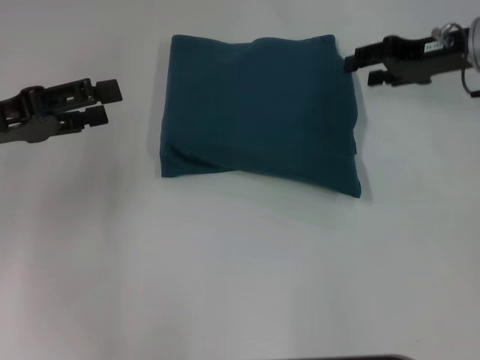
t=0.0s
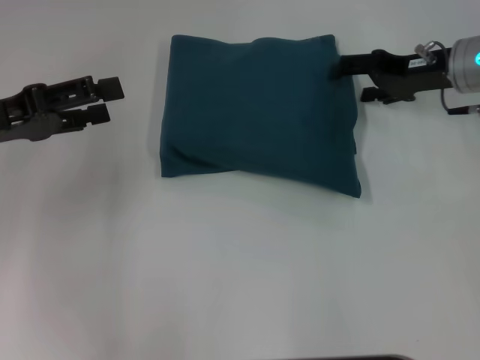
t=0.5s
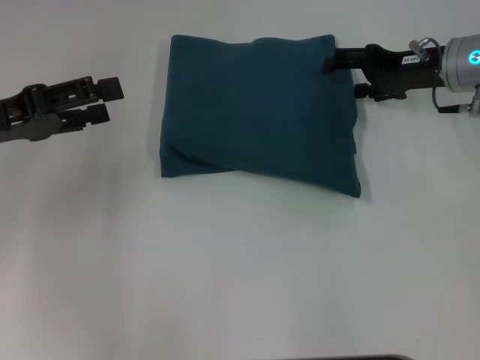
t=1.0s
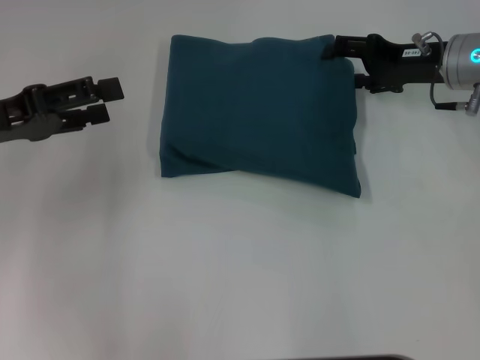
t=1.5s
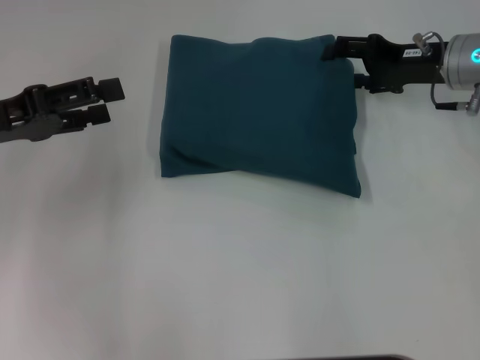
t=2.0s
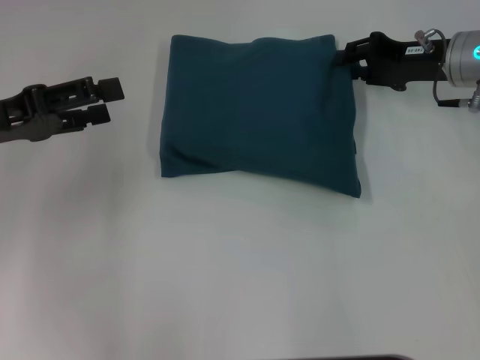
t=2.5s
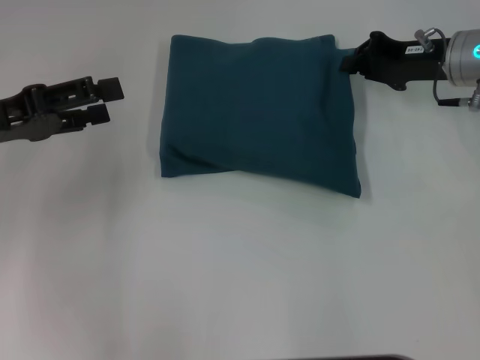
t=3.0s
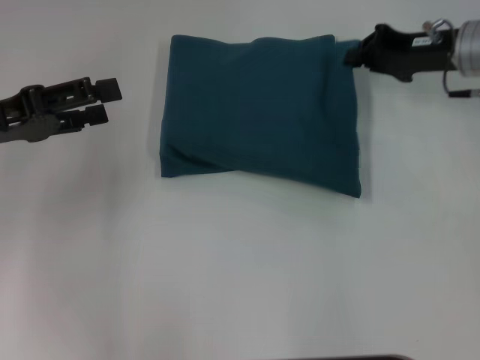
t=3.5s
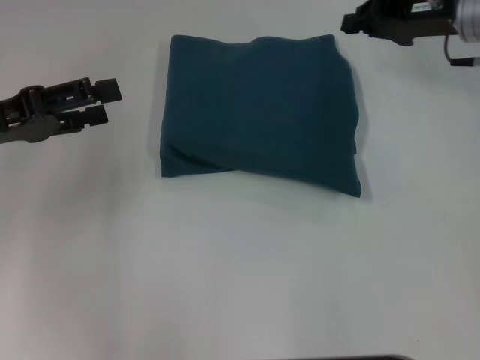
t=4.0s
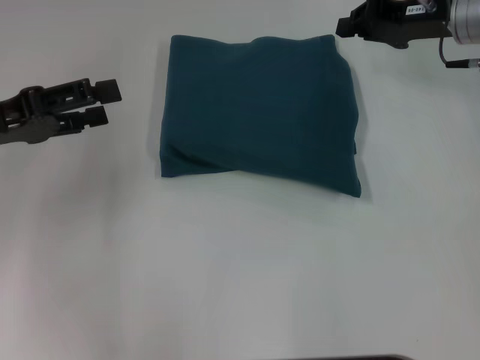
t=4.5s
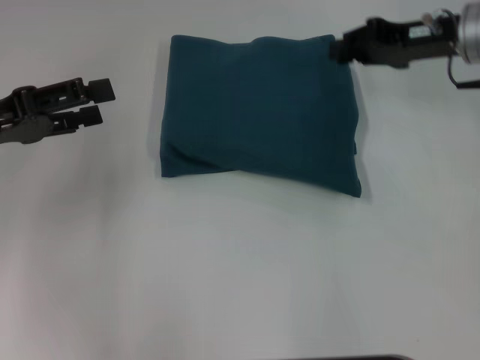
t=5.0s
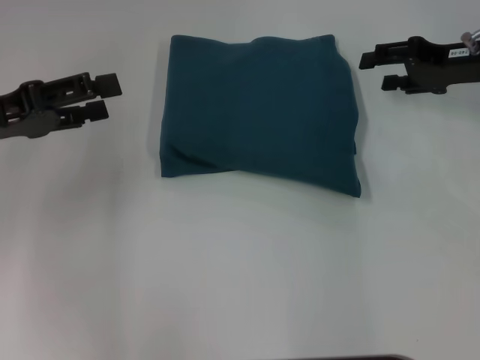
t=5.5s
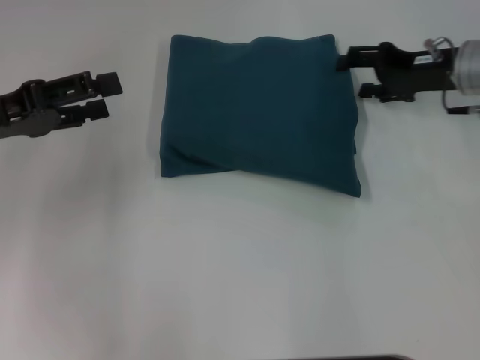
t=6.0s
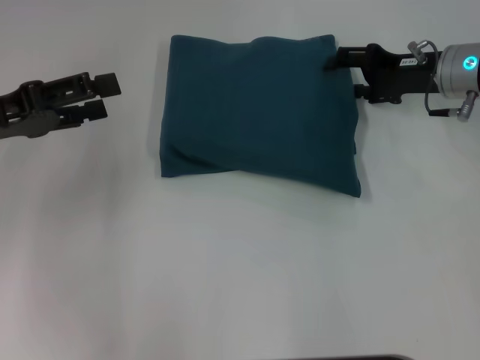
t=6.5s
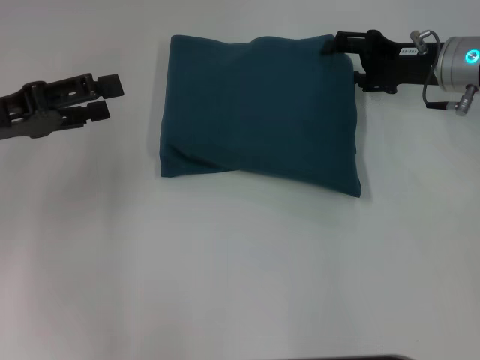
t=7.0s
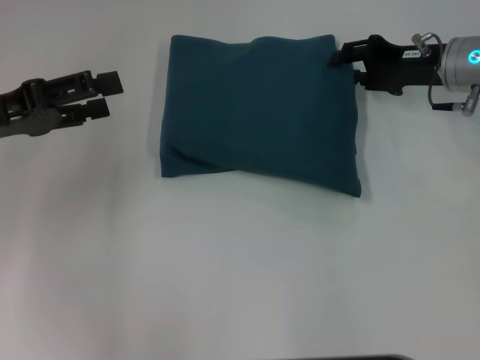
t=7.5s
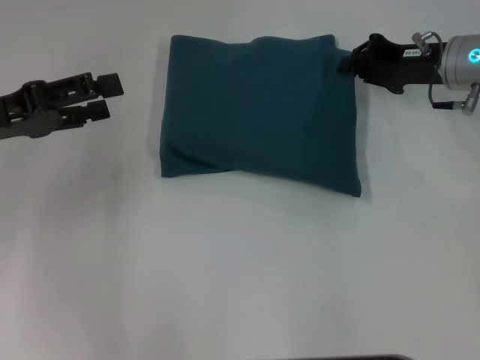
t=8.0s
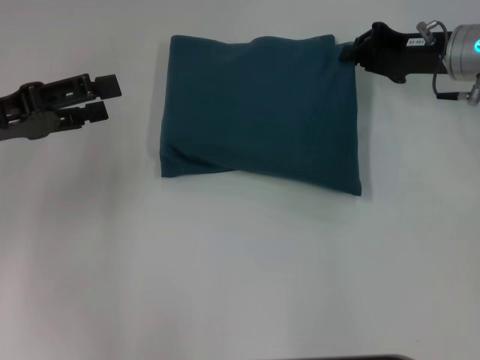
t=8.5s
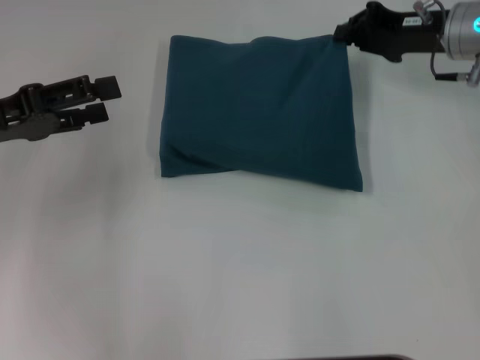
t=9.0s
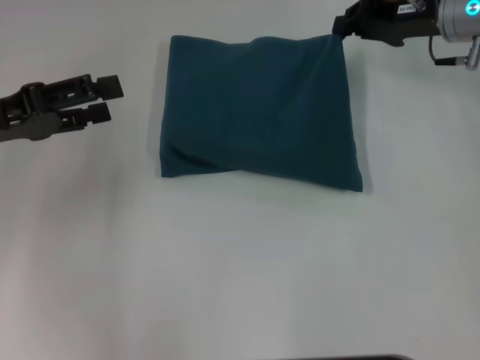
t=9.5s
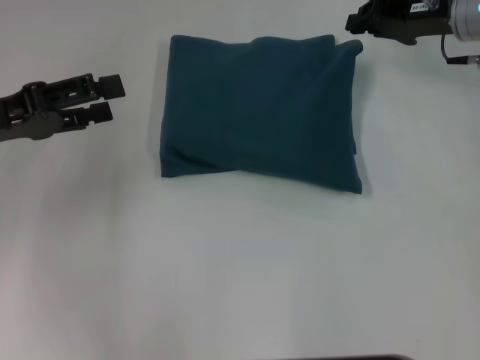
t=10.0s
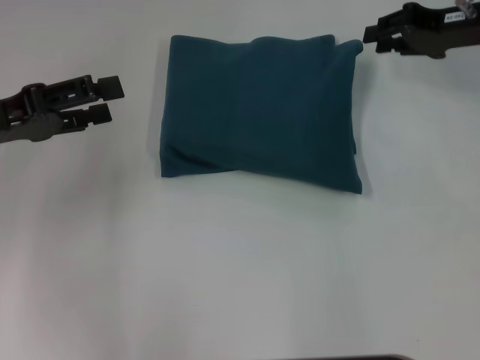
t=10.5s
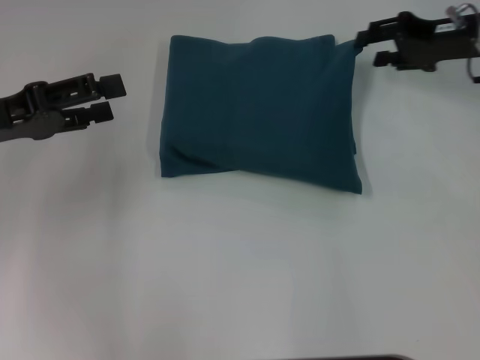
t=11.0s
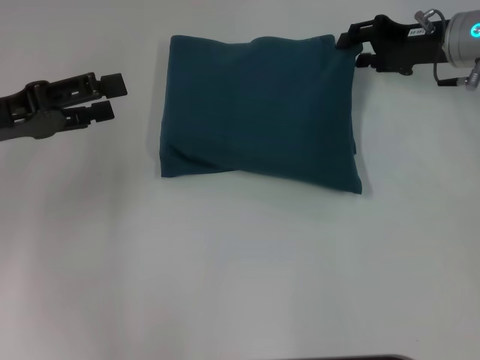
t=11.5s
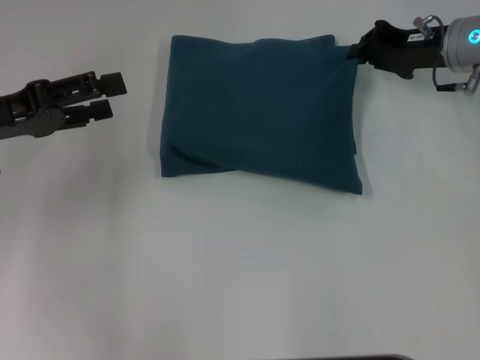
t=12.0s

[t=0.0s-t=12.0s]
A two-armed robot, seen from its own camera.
t=0.0s to t=2.0s: The right gripper opens its fingers.
t=2.0s to t=4.0s: The right gripper closes.
t=4.0s to t=6.0s: The right gripper moves roughly 5 cm, and opens up.
t=6.0s to t=8.0s: The right gripper closes its fingers.
t=8.0s to t=10.0s: The right gripper shifts by roughly 5 cm.
t=10.0s to t=12.0s: The grippers stay close to where they were, moving slightly.

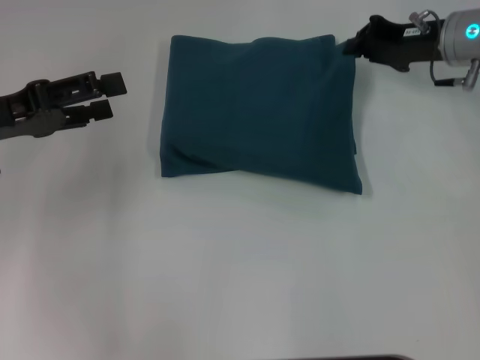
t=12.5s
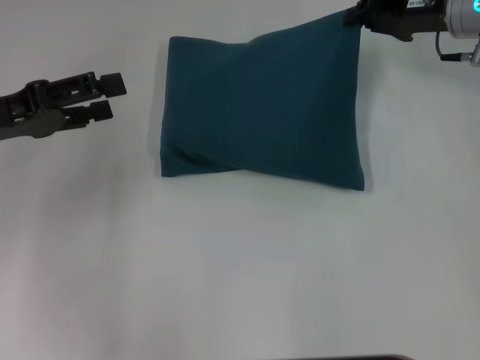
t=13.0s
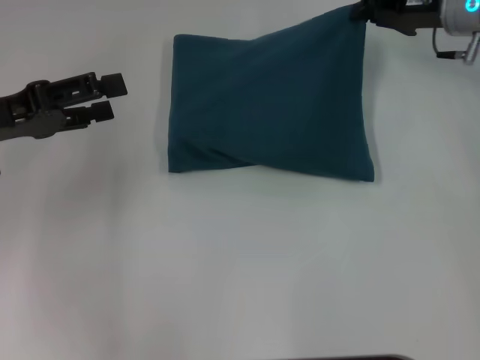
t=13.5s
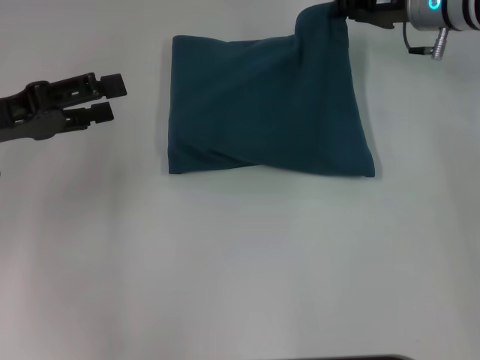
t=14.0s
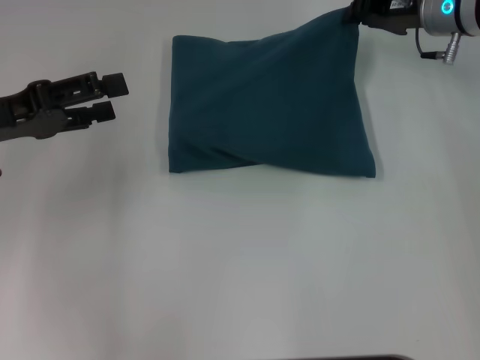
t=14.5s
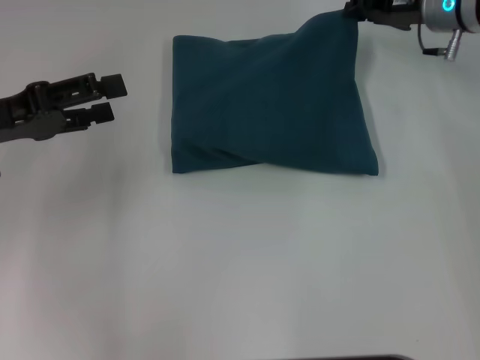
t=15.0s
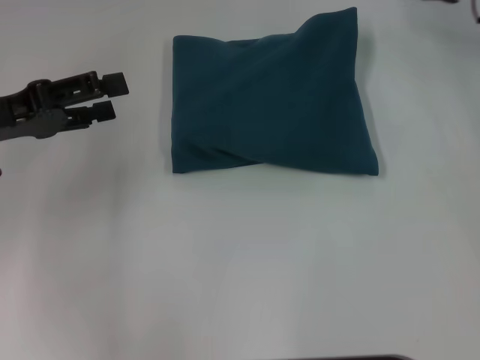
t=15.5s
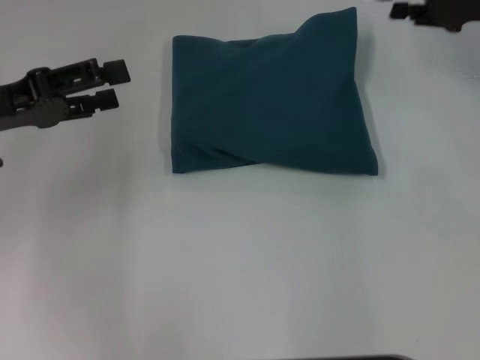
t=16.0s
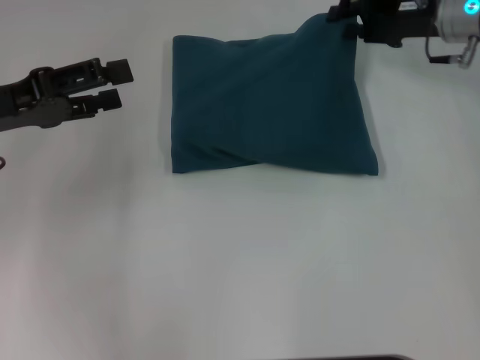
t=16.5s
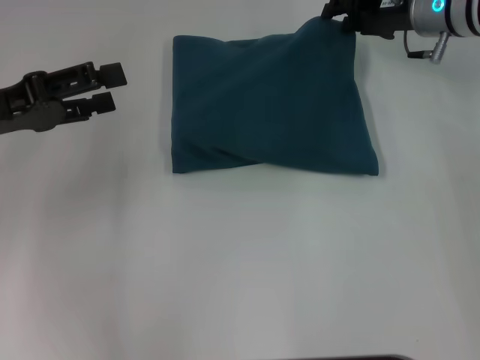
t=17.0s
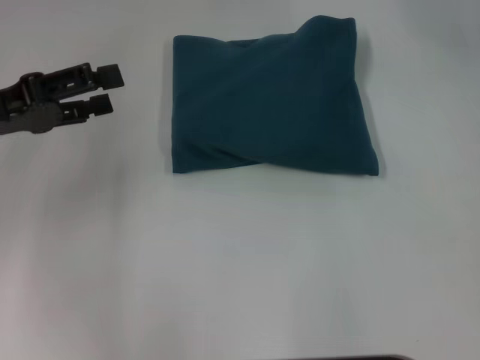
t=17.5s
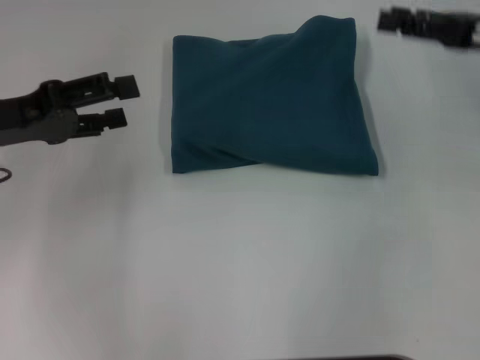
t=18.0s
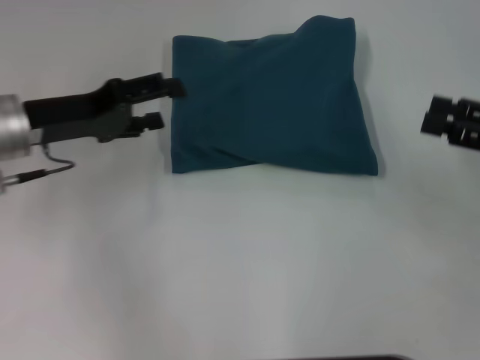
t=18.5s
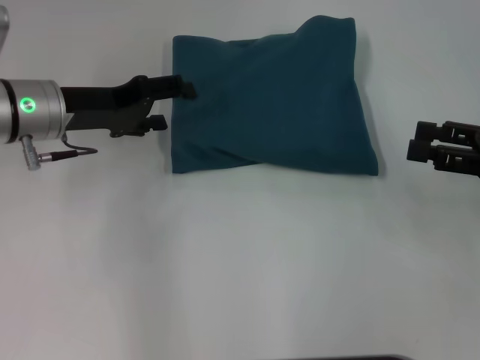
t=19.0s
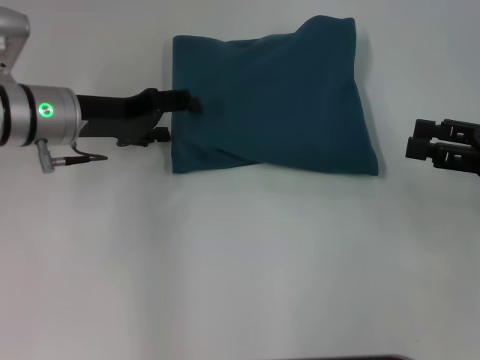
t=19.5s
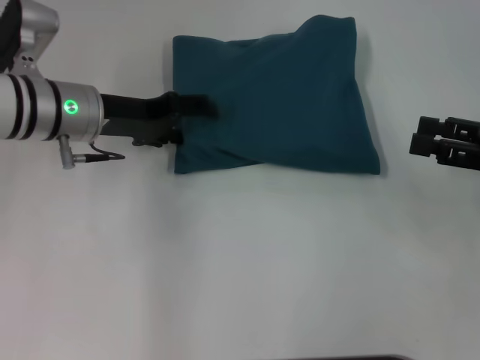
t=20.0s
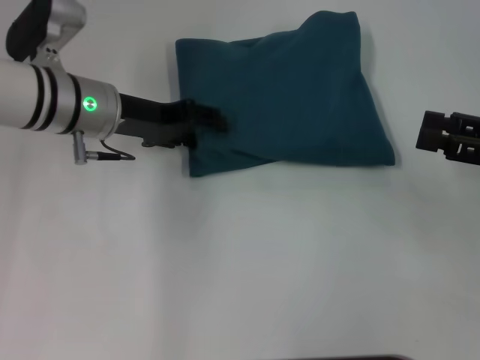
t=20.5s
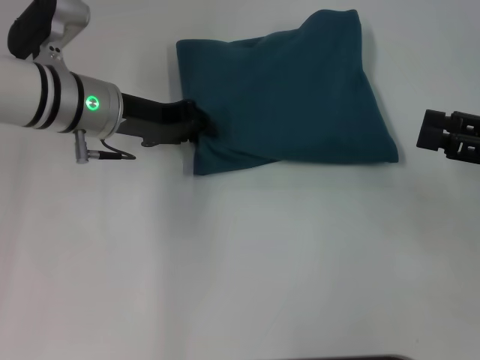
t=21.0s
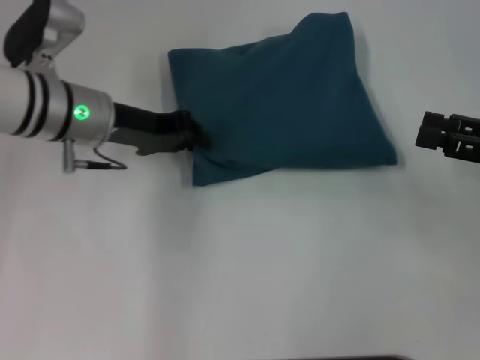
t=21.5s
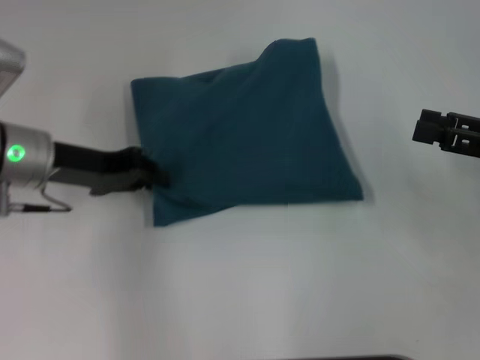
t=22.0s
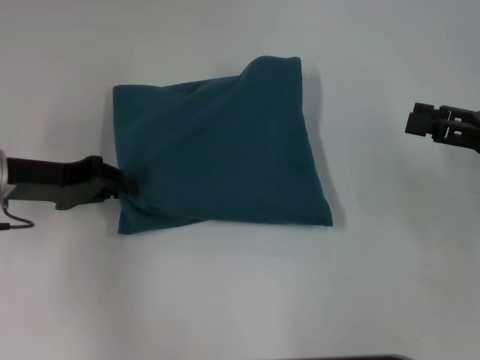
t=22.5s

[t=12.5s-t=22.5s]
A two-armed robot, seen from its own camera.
t=12.5s to t=14.5s: There are only small adjustments of the grippers.
t=14.5s to t=16.5s: The right gripper goes to the right and returns, about 10 cm each way, and opens.
t=16.5s to t=18.5s: The right gripper is displaced backward and to the right by some 20 cm, while the left gripper travels to the right by roughly 5 cm.
t=18.5s to t=20.5s: The left gripper travels to the right by roughly 5 cm.
t=20.5s to t=22.5s: The left gripper heads to the left and backward, covering some 10 cm, and closes its fingers.

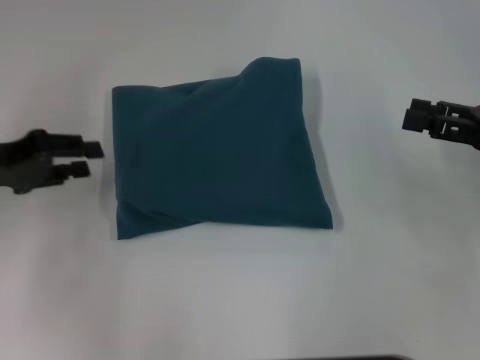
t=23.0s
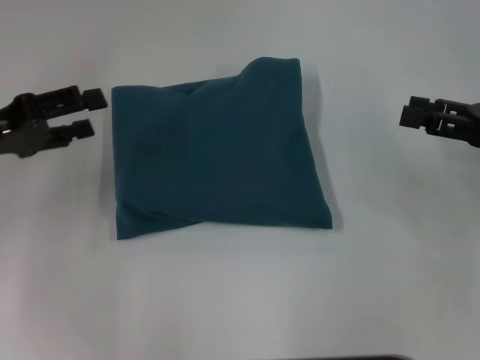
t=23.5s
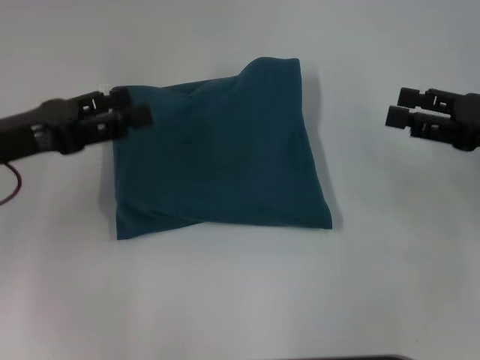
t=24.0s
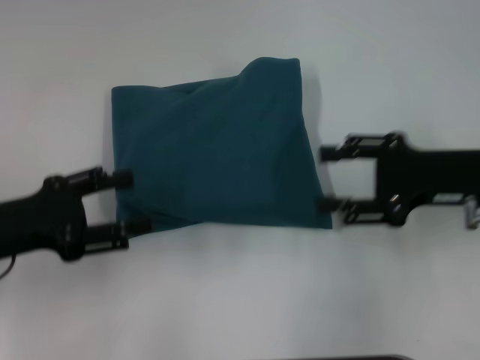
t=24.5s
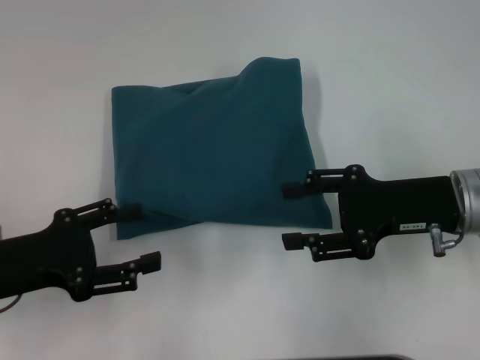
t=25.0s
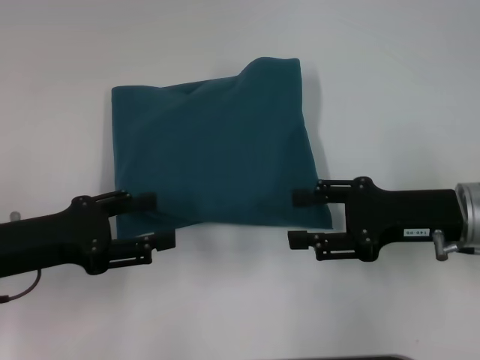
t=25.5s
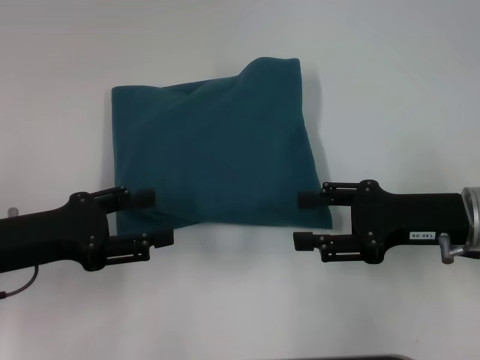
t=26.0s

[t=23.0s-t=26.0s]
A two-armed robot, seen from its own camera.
t=23.0s to t=24.5s: The left gripper travels backward by approximately 5 cm, and opens its fingers. The right gripper travels to the left by approximately 5 cm.
t=24.5s to t=26.0s: The grippers make only small movements.

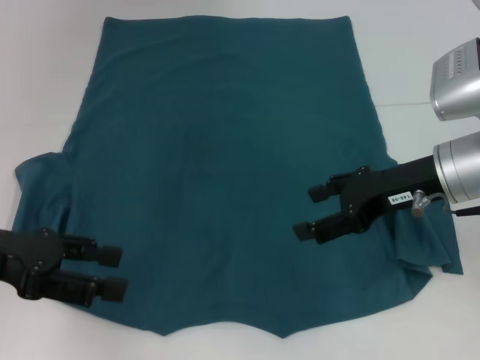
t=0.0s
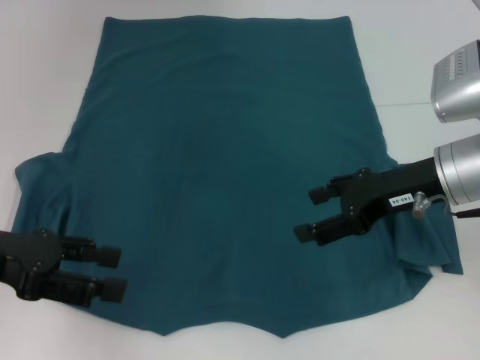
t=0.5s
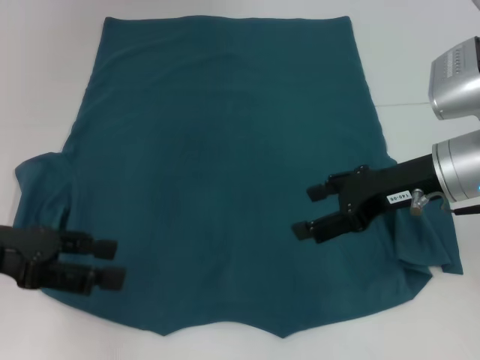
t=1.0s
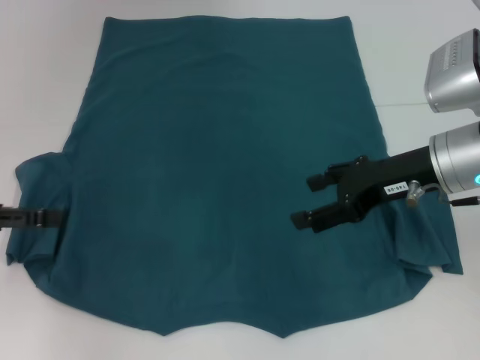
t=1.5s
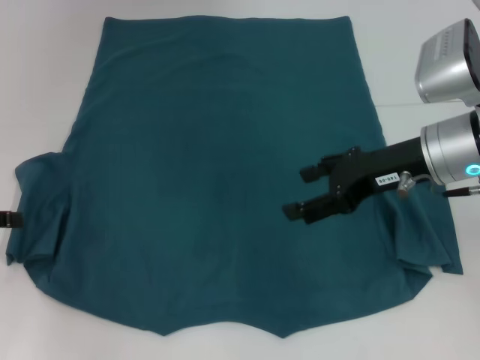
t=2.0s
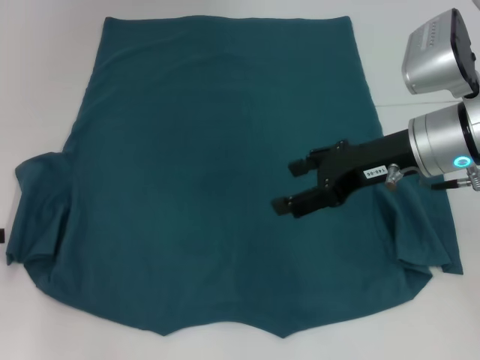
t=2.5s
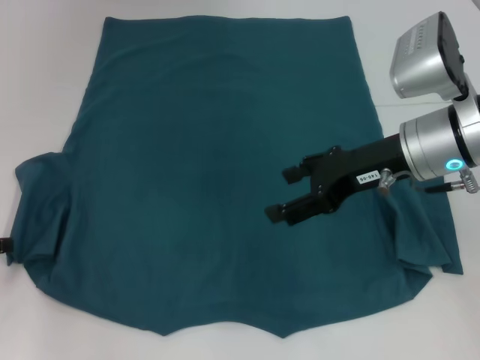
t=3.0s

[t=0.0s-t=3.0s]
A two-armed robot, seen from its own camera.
t=0.0s to t=1.5s: The left gripper shifts some 5 cm to the left.
t=1.5s to t=3.0s: The left gripper is displaced downward by approximately 5 cm.
